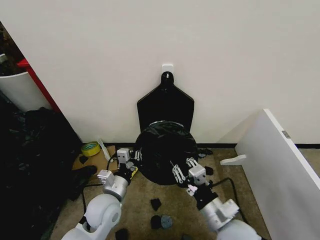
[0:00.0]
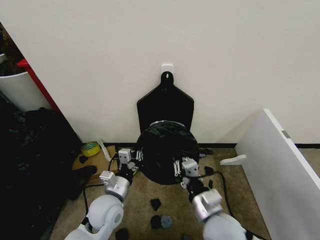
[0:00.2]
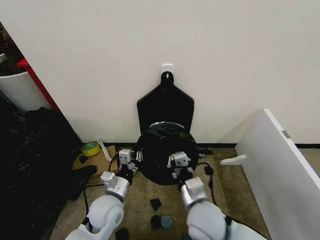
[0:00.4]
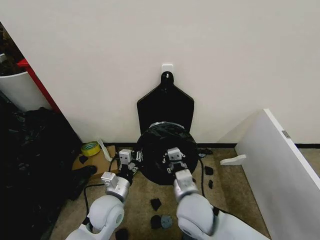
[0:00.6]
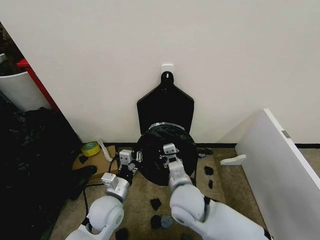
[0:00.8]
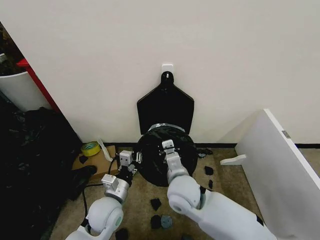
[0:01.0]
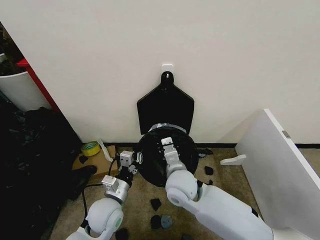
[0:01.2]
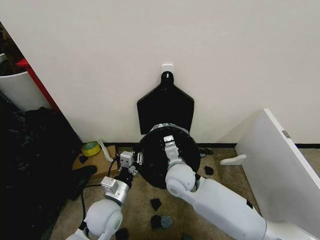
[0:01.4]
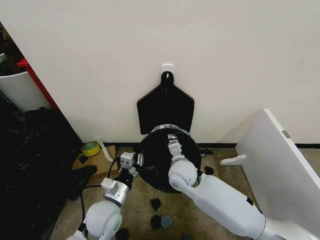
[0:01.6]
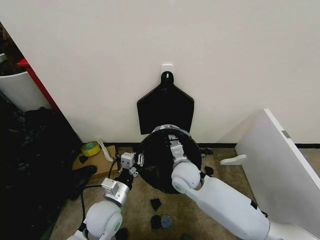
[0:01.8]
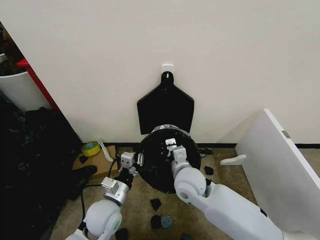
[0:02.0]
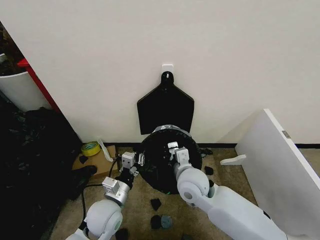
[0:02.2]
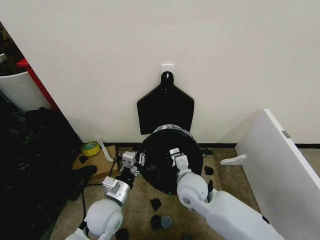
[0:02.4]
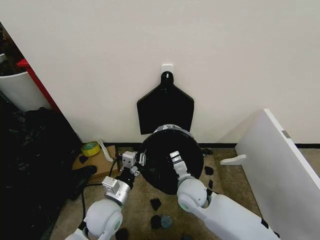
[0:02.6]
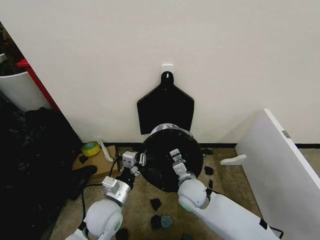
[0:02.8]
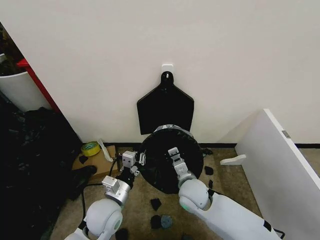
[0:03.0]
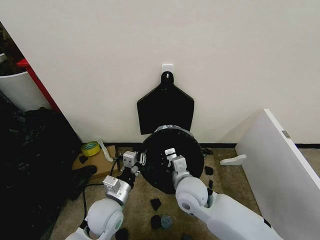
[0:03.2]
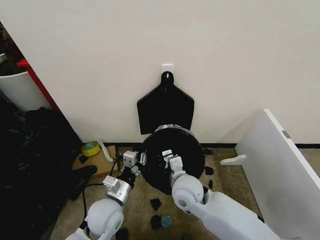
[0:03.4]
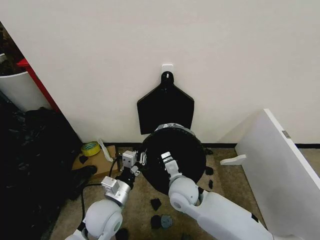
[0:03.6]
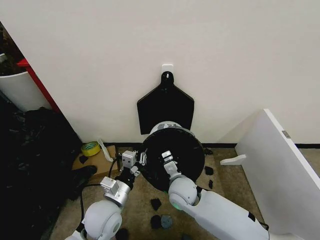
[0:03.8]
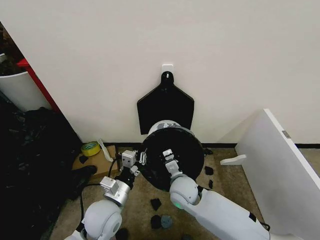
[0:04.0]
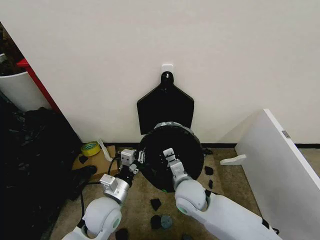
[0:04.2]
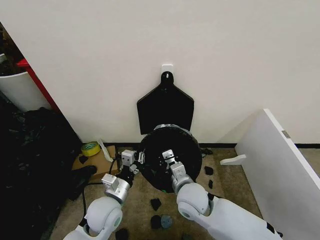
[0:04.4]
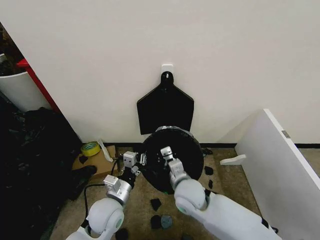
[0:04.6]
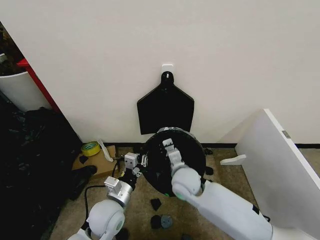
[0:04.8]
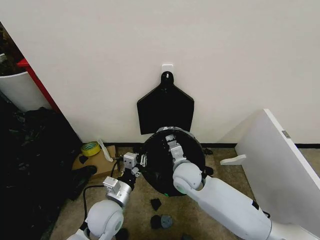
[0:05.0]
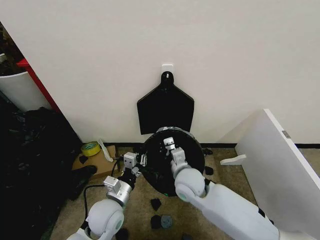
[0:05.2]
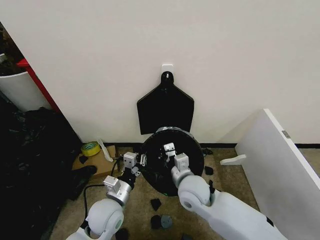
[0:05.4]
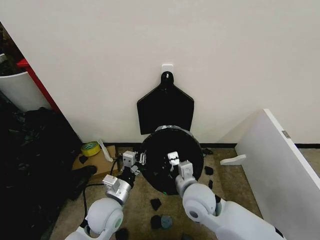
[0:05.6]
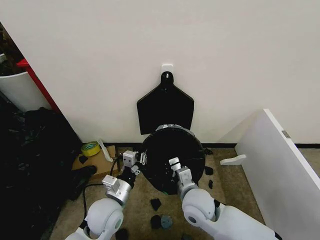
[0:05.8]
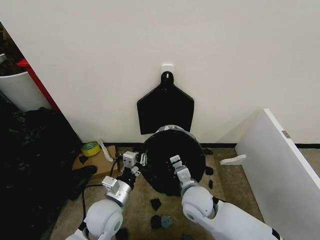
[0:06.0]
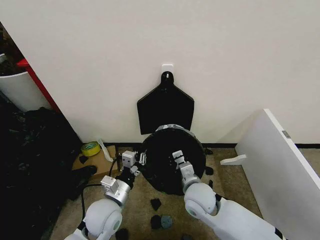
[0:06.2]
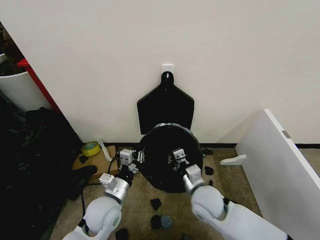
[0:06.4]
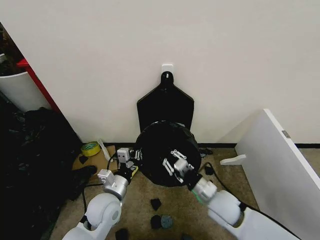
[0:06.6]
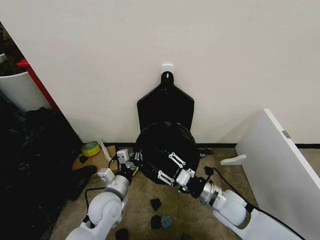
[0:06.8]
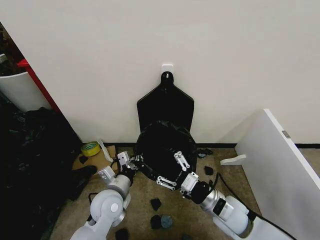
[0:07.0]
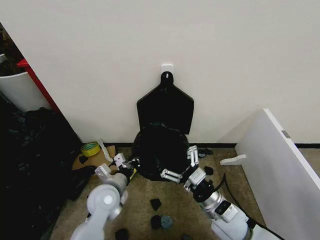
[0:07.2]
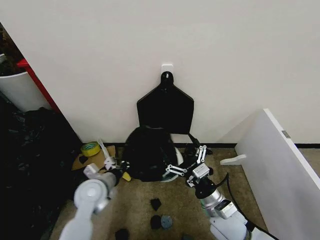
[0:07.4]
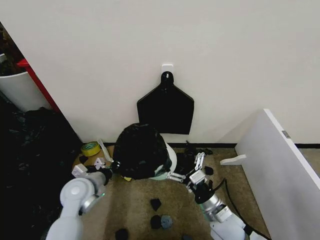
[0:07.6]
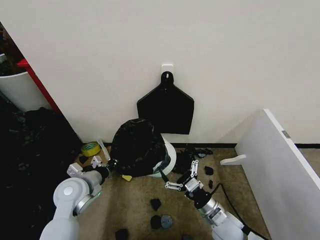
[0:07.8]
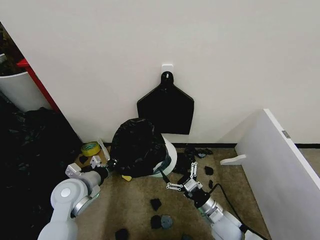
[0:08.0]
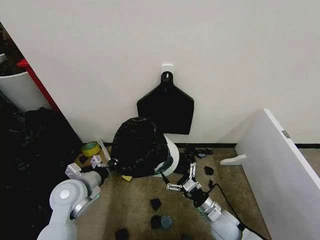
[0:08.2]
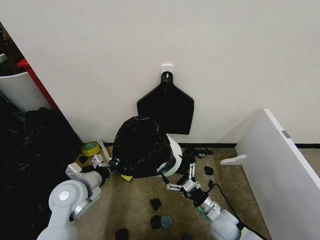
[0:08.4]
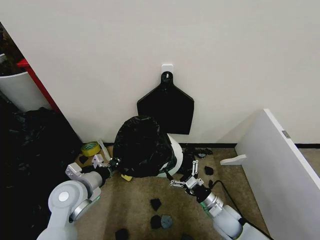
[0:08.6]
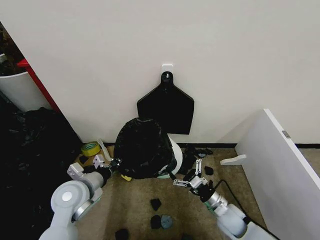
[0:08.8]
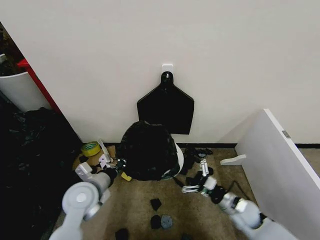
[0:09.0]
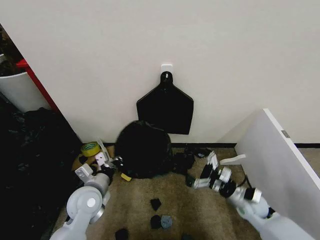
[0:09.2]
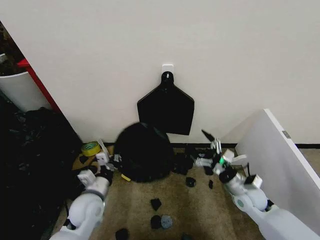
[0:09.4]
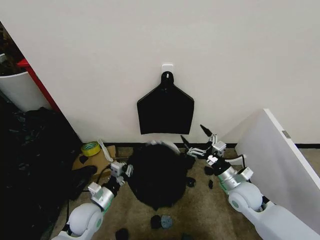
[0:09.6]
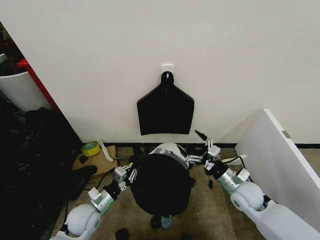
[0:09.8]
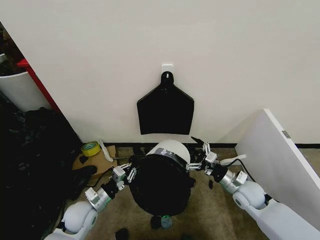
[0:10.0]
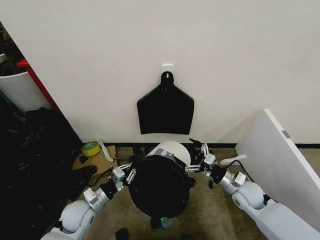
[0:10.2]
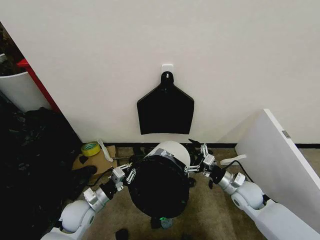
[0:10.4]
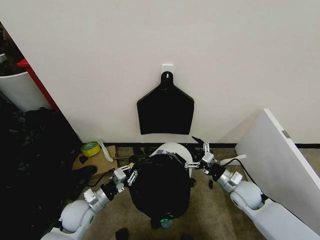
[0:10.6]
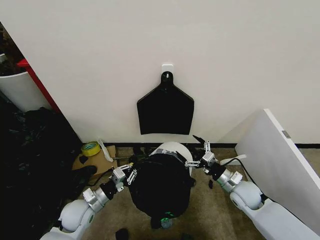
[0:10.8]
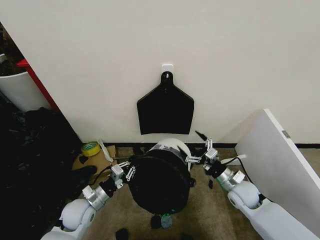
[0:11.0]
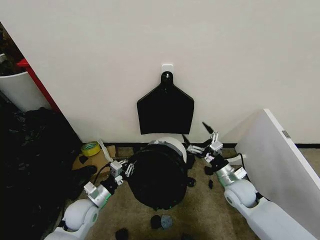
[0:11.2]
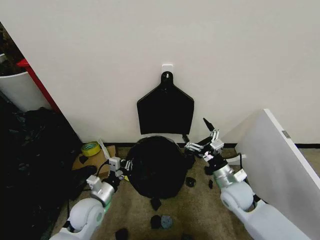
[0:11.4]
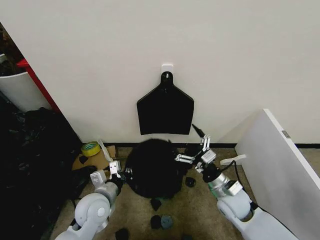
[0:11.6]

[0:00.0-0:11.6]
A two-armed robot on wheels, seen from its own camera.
Task of the whole recording: Place the garbage bag over the trash bin.
0:00.0 to 0:01.4: The right gripper travels forward and to the left by some 20 cm.
0:01.4 to 0:02.8: The right gripper moves downward, some 5 cm.
0:02.8 to 0:04.4: The right gripper moves approximately 5 cm.
0:04.4 to 0:05.8: The right gripper reaches about 5 cm forward, then returns.
0:05.8 to 0:07.2: The right gripper shifts about 10 cm to the right, and opens up.
0:07.2 to 0:08.8: The right gripper shifts some 15 cm downward and to the right, while the left gripper is displaced to the left by about 10 cm.
0:08.8 to 0:10.2: The right gripper is displaced upward, to the right and forward by roughly 10 cm; the left gripper goes some 15 cm downward.
0:10.2 to 0:11.6: The left gripper moves to the right and upward, roughly 10 cm, while the right gripper moves to the left, about 10 cm.

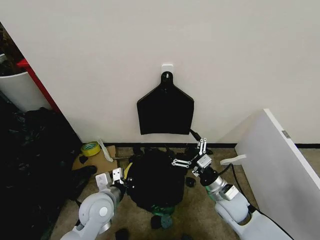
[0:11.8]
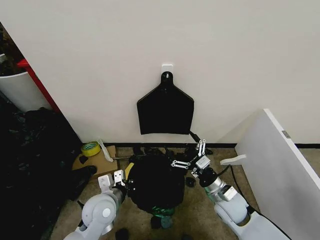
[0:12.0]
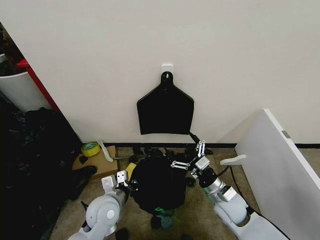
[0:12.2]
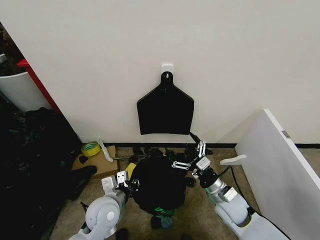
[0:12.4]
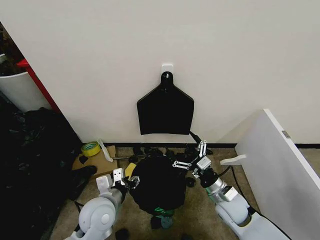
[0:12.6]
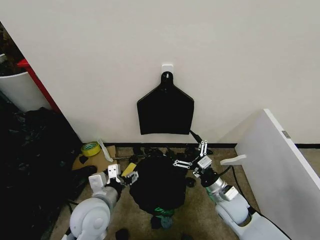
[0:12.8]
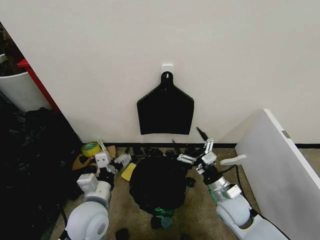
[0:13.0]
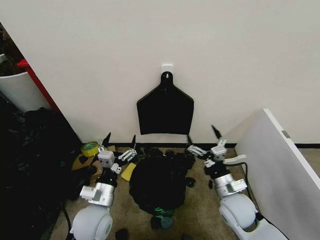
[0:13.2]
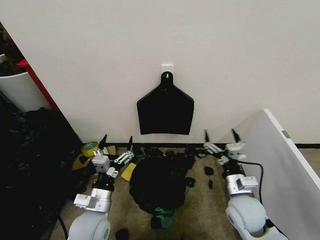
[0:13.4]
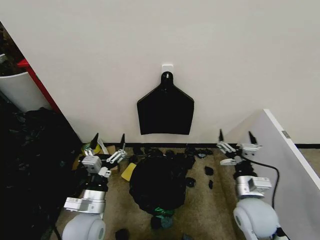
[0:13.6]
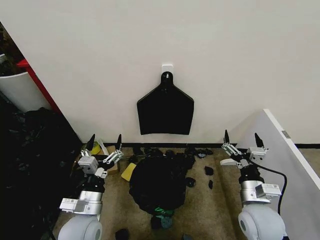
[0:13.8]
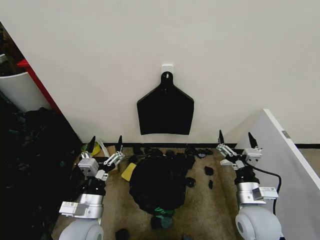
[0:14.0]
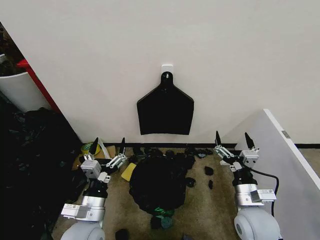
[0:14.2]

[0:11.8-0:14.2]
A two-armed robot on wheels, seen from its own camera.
Task of the whole recording: Place the garbage bag over the trash bin.
0:11.8 to 0:13.0: The left gripper changes place by roughly 5 cm, and opens its fingers.
0:13.0 to 0:14.2: The right gripper moves backward, approximately 5 cm.

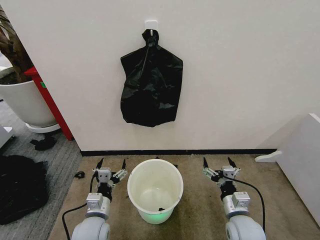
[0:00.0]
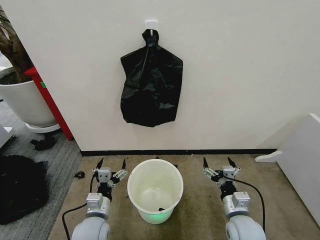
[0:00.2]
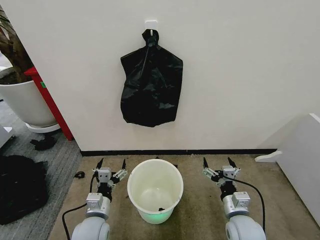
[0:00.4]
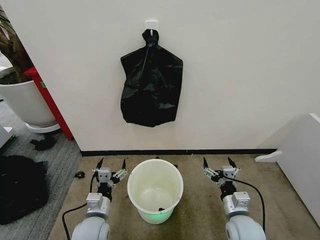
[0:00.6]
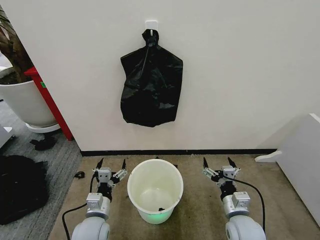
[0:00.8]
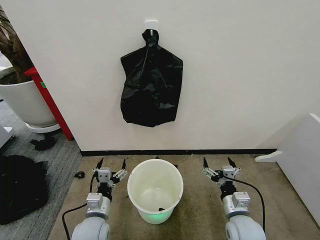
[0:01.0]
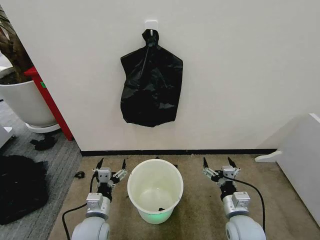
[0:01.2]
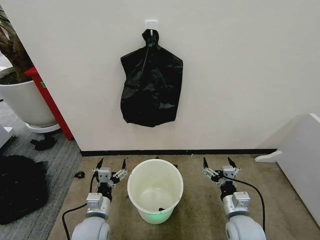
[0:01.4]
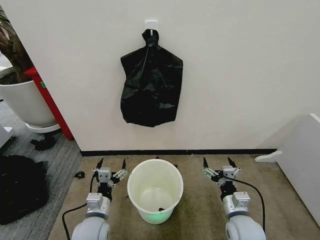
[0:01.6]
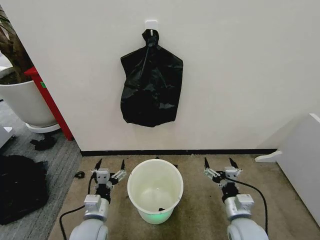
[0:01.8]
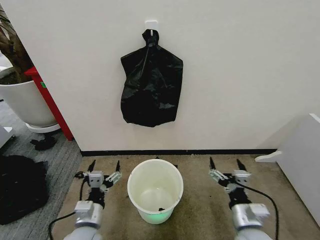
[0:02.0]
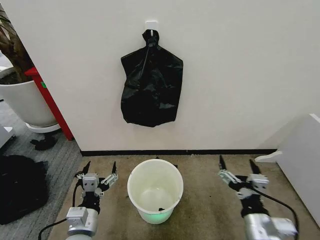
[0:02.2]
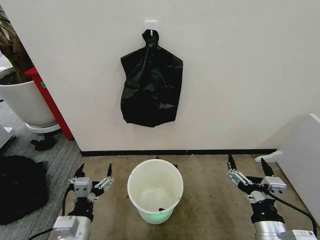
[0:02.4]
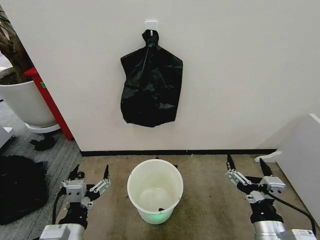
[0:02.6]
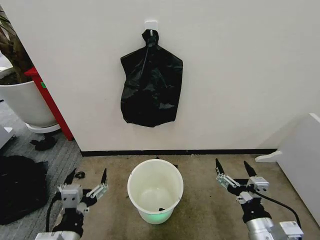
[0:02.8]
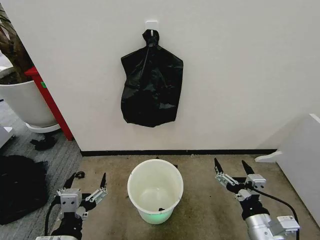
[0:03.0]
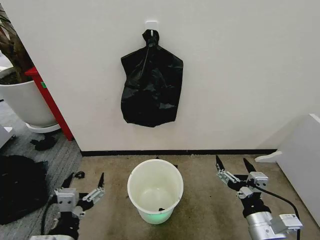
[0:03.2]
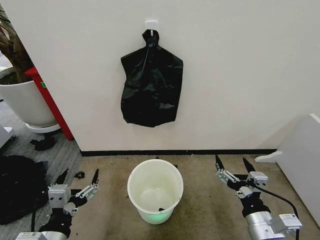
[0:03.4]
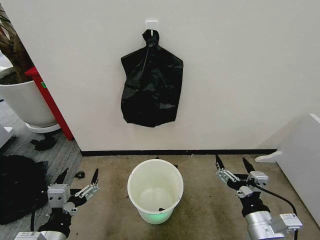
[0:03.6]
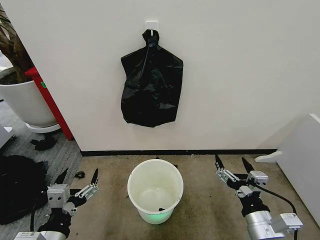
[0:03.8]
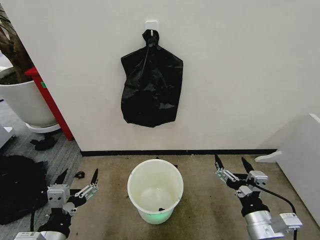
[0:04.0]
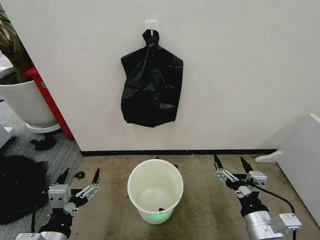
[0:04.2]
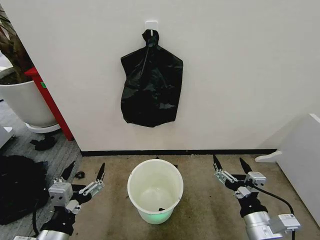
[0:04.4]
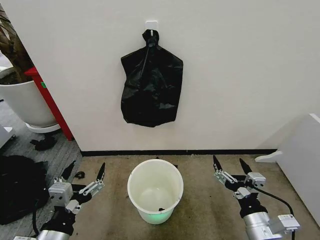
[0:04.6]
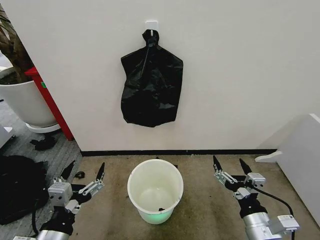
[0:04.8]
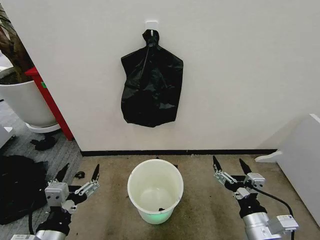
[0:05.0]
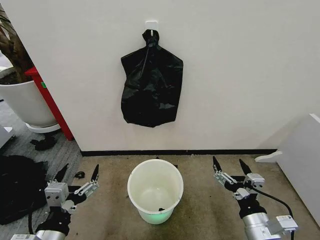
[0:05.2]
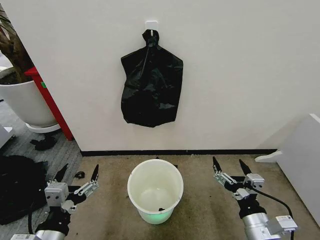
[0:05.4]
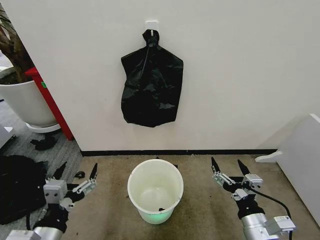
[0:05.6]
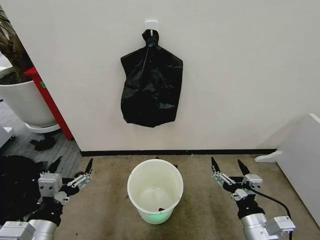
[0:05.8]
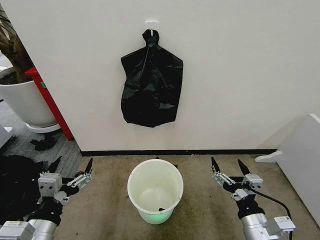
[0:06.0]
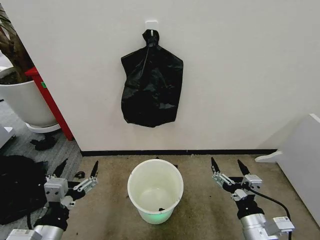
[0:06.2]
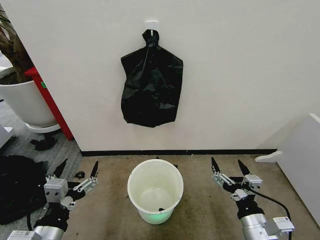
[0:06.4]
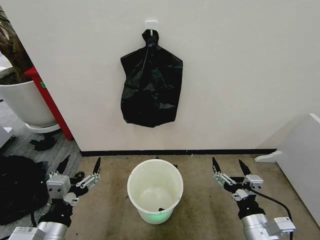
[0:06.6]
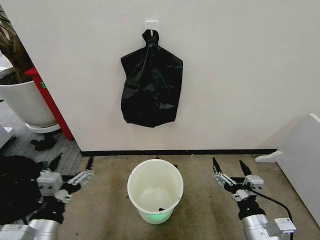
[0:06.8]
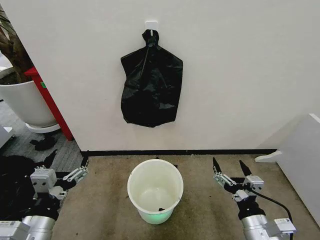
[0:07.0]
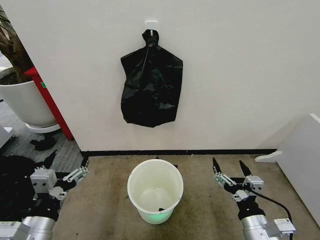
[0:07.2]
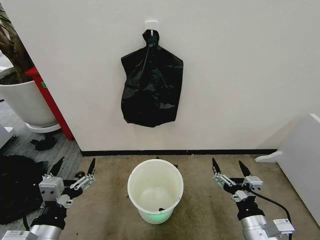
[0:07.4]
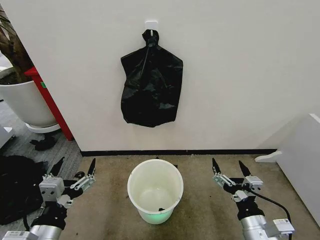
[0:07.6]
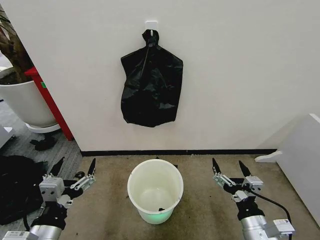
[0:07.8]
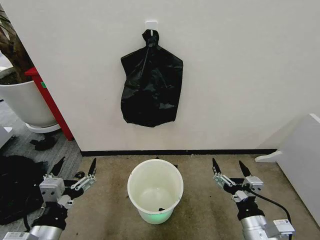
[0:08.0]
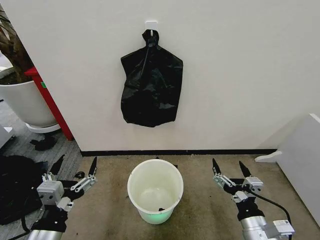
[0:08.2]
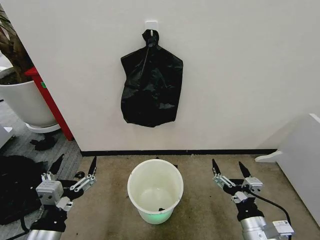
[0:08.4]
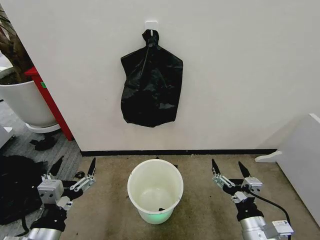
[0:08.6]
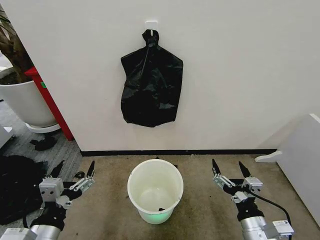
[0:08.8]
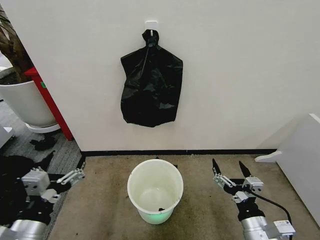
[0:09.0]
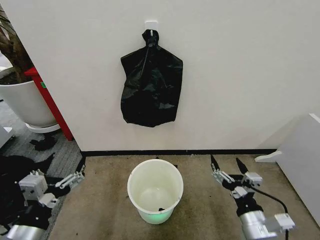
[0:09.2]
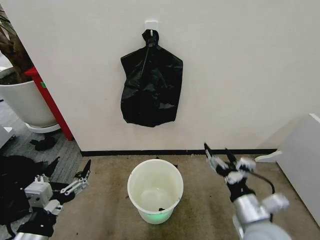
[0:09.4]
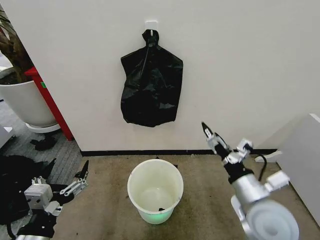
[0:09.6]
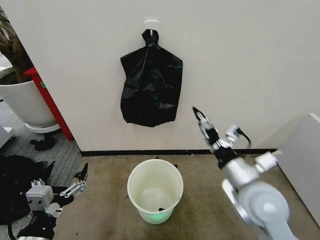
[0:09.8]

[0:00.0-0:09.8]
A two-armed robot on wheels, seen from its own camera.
Task of the whole recording: Place the garbage bag over the trash bin.
0:01.4 to 0:02.8: Both grippers move backward and upward, some 15 cm.
0:02.8 to 0:05.6: The grippers make only small movements.
0:05.6 to 0:08.4: The grippers move only a little.
0:08.4 to 0:09.8: The right gripper moves upward and forward, some 15 cm.
